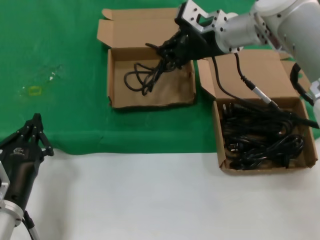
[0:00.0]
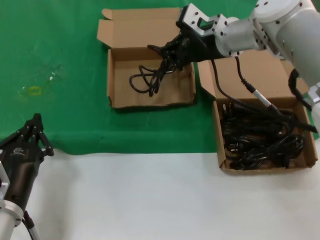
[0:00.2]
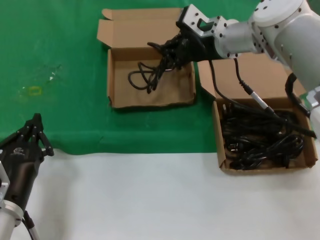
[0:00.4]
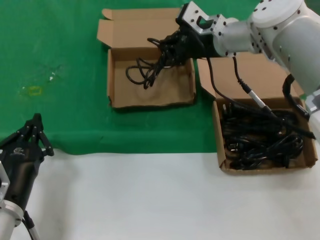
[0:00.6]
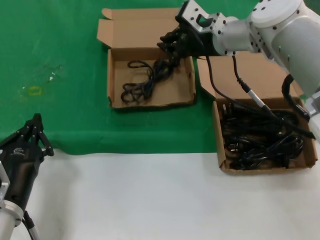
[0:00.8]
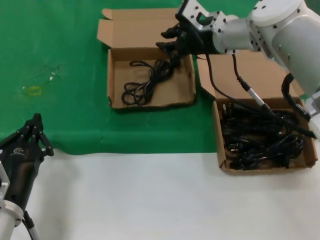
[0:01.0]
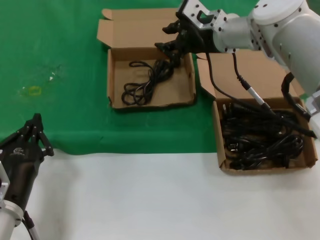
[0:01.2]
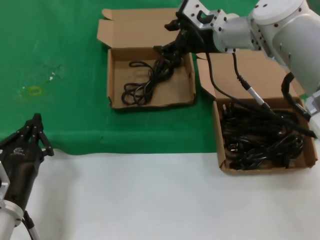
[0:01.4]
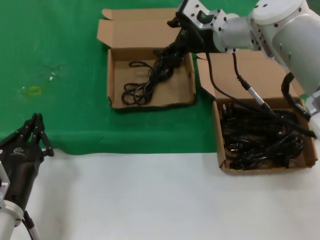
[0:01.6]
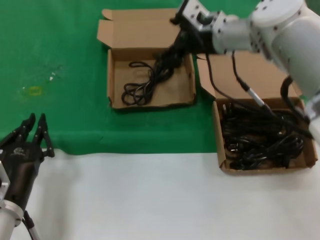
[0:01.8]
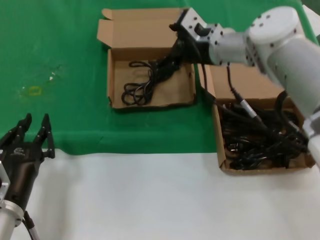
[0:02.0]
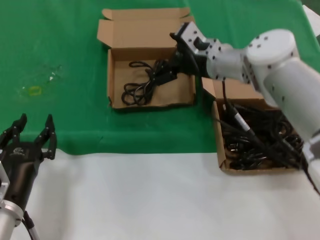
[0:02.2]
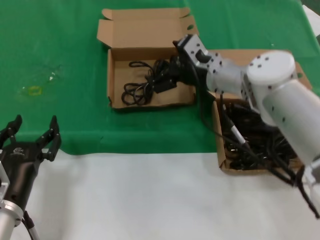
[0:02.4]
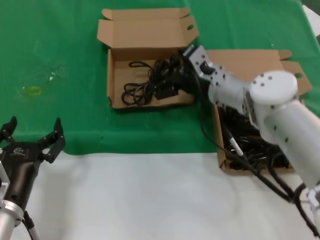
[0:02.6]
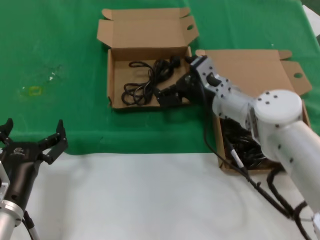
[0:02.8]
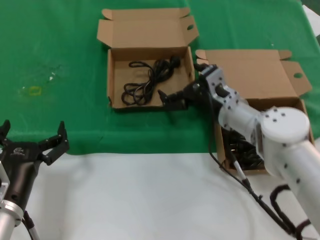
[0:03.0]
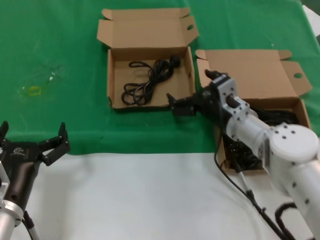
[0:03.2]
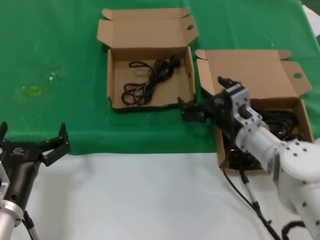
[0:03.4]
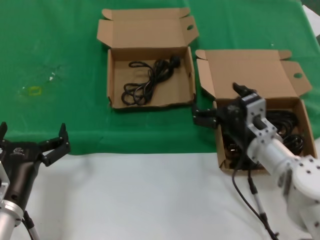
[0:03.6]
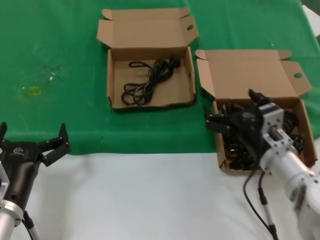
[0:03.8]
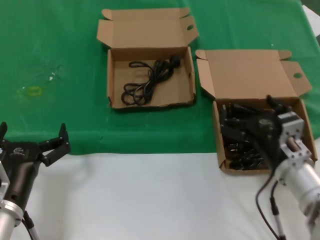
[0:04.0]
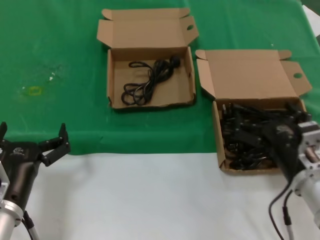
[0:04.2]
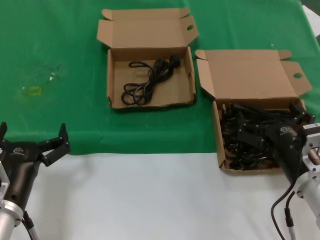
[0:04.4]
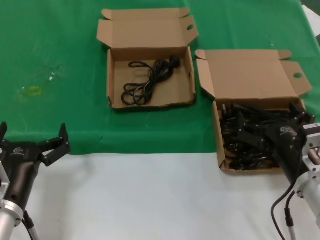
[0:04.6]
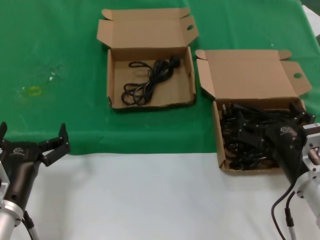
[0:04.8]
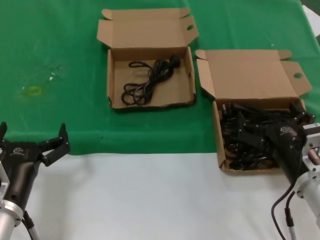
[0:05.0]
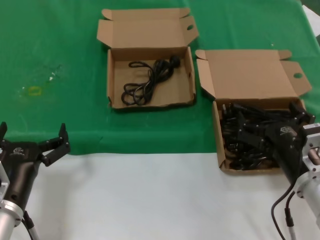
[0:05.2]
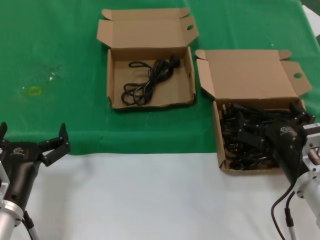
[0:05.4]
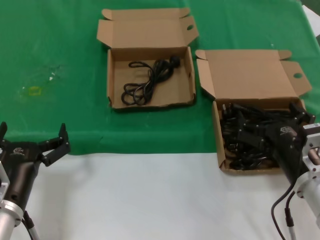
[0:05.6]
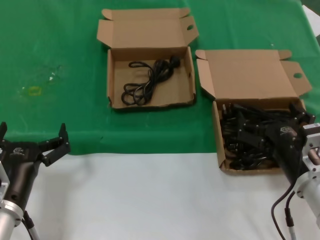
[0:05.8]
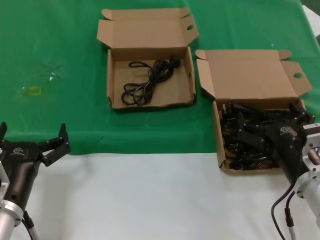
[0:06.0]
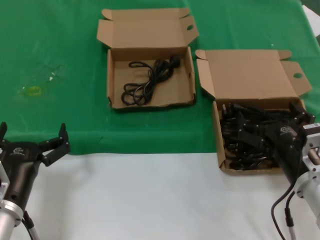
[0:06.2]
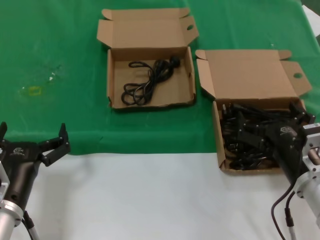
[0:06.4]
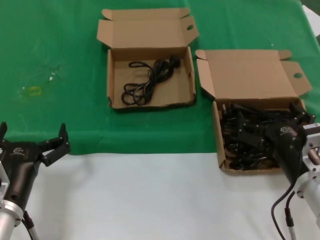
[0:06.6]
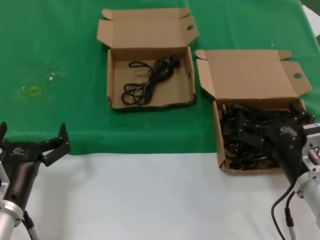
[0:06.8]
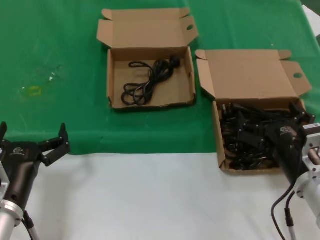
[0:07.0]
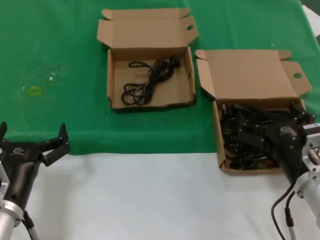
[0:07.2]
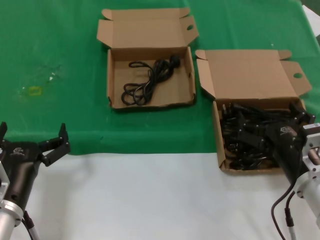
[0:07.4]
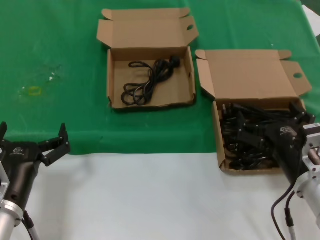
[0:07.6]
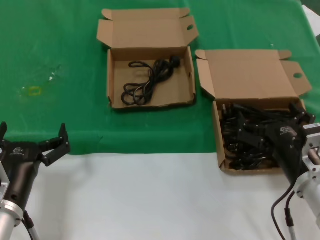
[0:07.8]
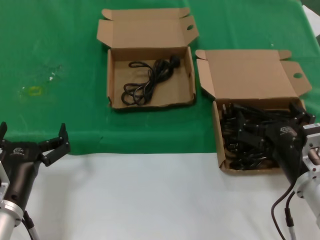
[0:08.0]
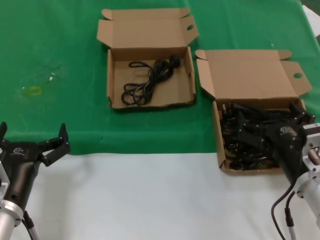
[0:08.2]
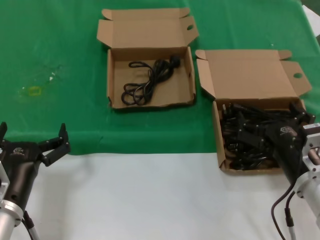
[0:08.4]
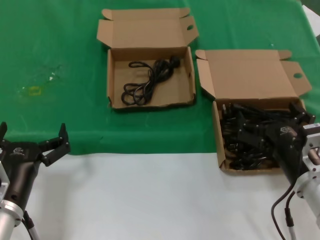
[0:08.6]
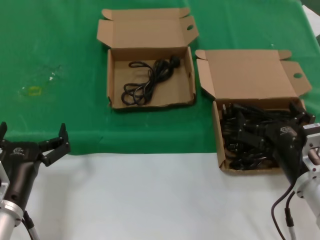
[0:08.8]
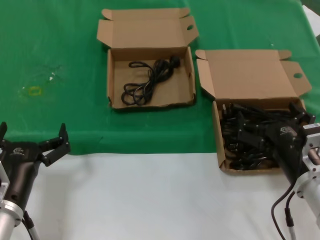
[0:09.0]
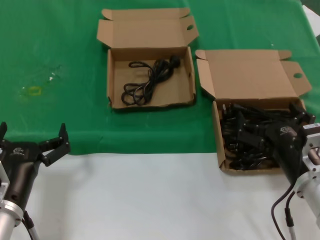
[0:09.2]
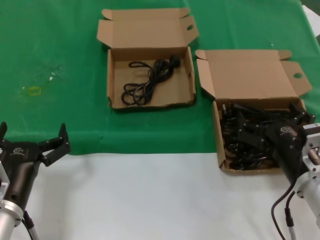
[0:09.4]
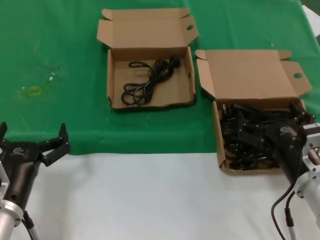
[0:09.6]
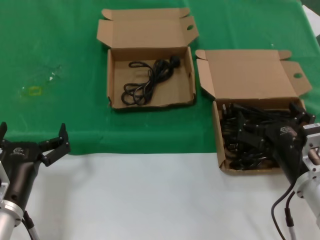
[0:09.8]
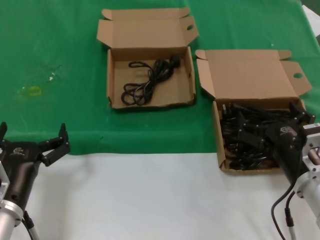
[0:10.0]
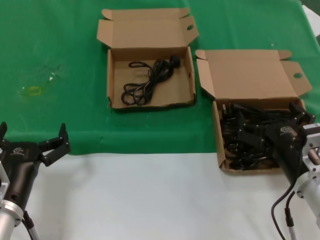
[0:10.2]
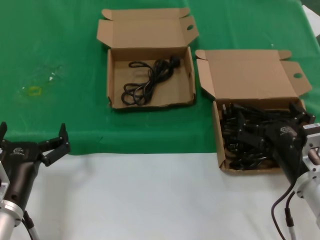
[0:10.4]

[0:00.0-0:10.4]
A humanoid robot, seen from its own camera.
Task of the whole recording: take the parts from the box containing them and put them into an empty box.
0:00.0 to 0:01.4: The hands make only small movements.
0:01.4 to 0:03.0: The right hand travels downward and backward by about 20 cm.
0:03.0 to 0:04.4: The right hand heads backward and to the right, covering some 20 cm.
0:04.4 to 0:10.4: The two hands keep their place.

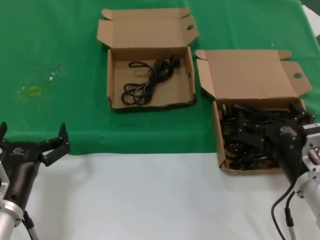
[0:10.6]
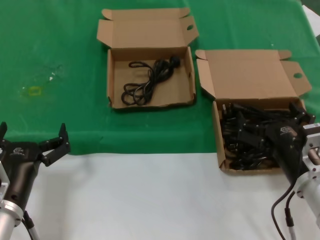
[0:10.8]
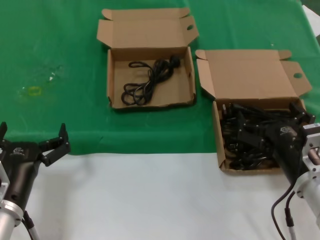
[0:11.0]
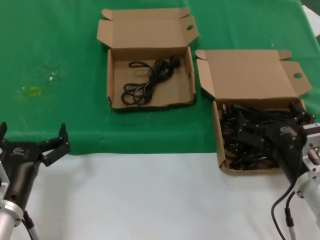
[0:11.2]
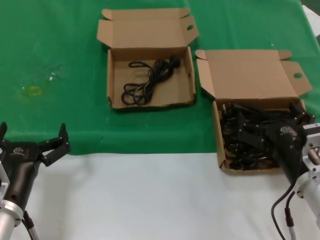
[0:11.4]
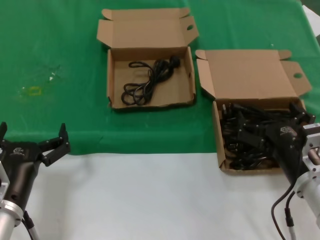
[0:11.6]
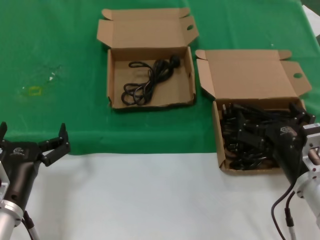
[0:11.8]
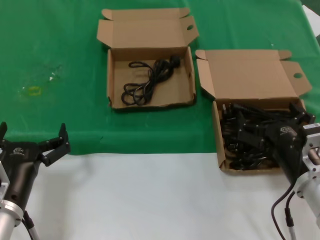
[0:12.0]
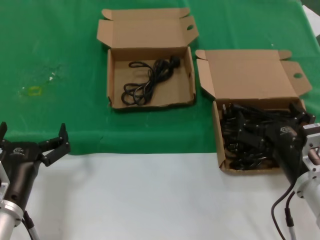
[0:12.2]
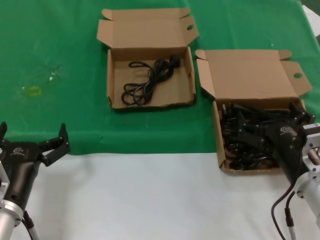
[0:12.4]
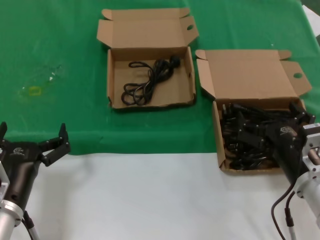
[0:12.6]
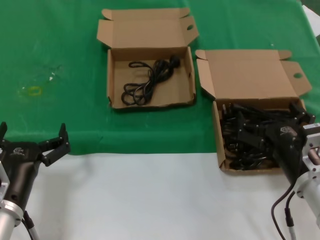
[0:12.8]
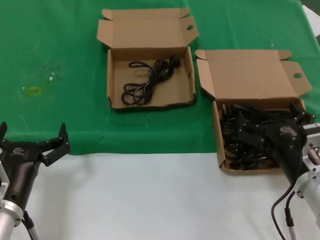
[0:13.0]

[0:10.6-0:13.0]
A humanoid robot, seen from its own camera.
Task of the whole recording: take the parts from the box containing them and put them into an empty box.
0:10.6 to 0:13.0: The two hands keep their place.

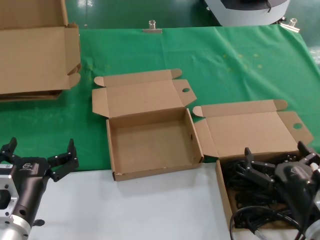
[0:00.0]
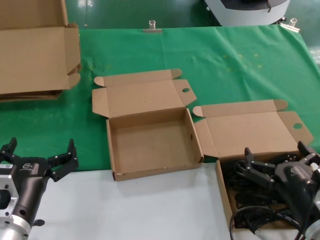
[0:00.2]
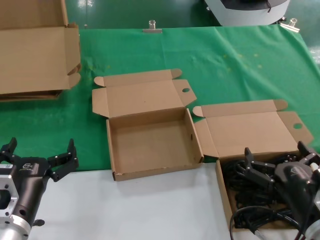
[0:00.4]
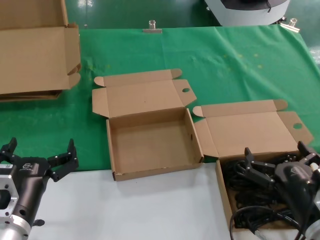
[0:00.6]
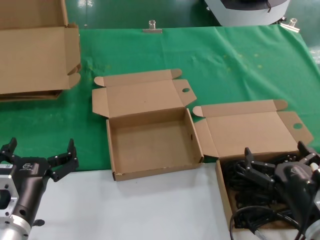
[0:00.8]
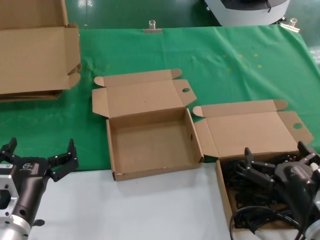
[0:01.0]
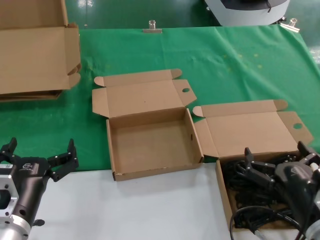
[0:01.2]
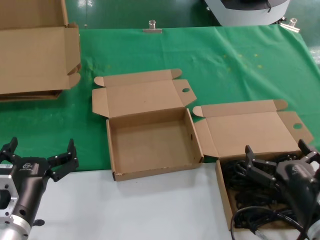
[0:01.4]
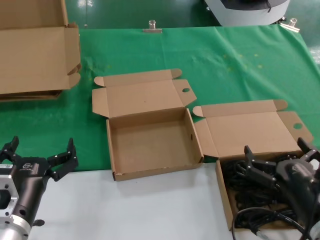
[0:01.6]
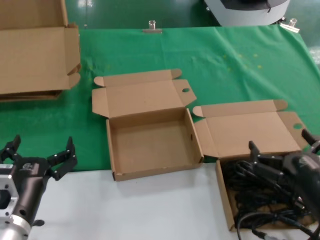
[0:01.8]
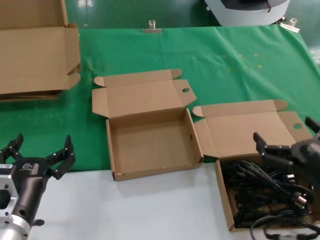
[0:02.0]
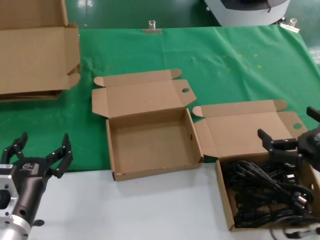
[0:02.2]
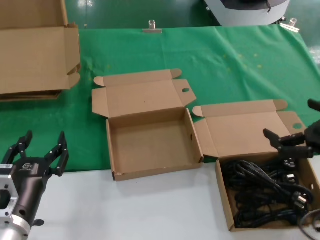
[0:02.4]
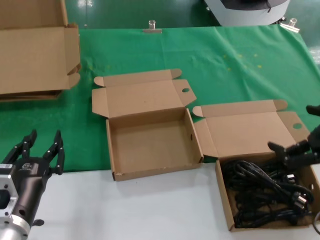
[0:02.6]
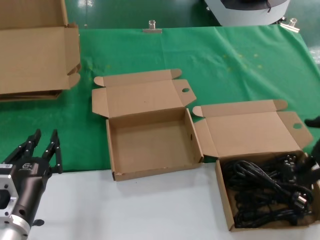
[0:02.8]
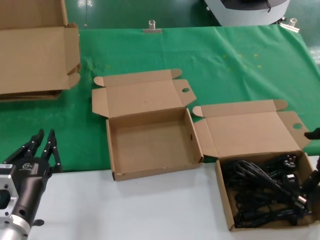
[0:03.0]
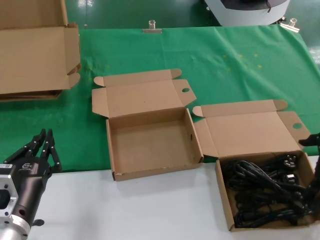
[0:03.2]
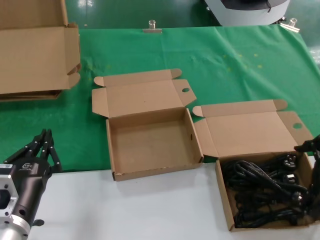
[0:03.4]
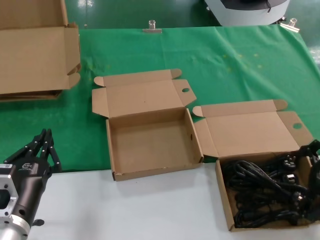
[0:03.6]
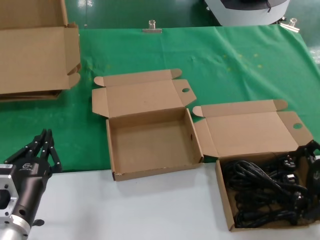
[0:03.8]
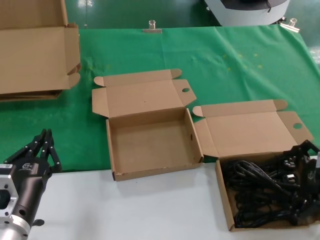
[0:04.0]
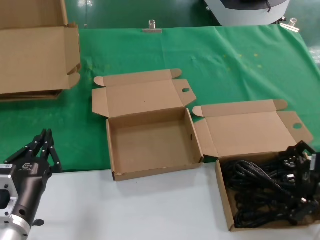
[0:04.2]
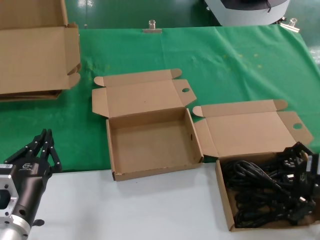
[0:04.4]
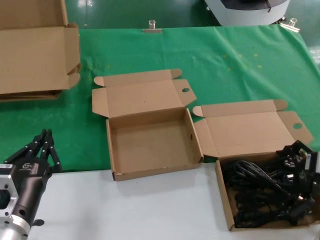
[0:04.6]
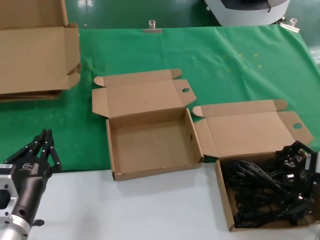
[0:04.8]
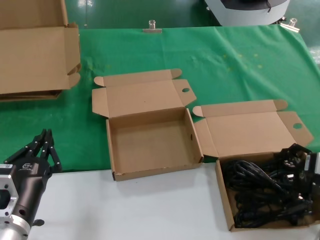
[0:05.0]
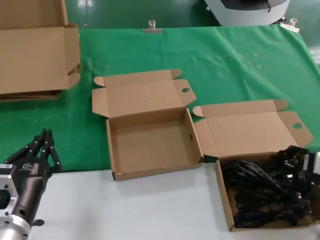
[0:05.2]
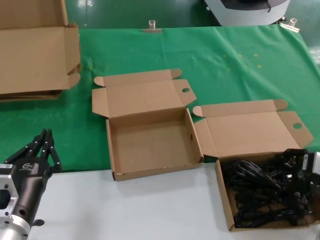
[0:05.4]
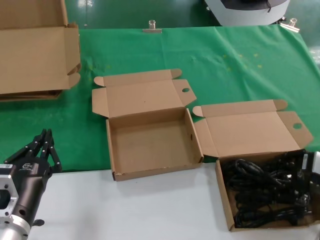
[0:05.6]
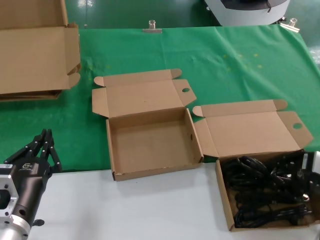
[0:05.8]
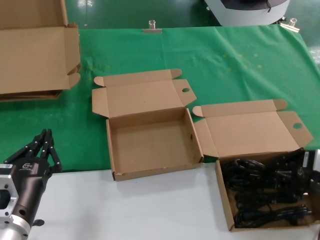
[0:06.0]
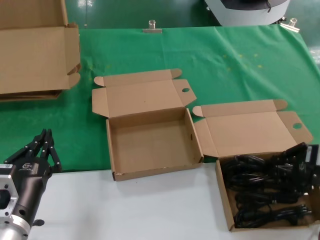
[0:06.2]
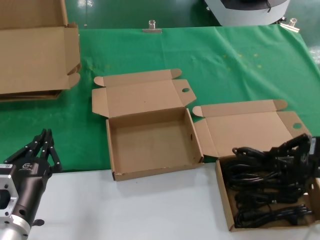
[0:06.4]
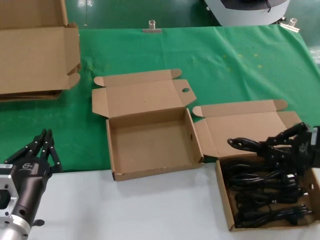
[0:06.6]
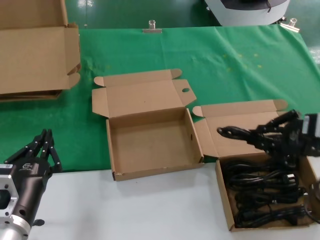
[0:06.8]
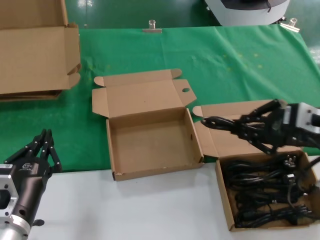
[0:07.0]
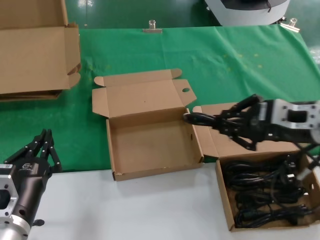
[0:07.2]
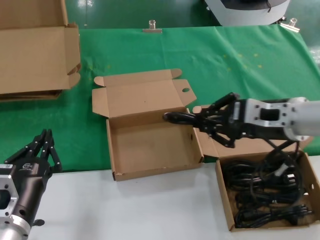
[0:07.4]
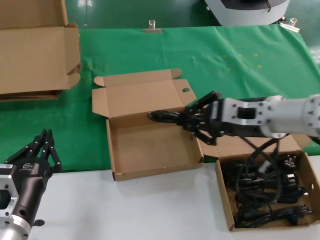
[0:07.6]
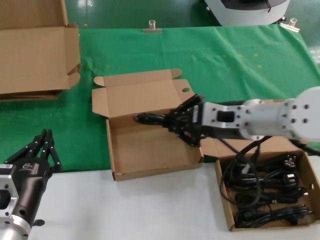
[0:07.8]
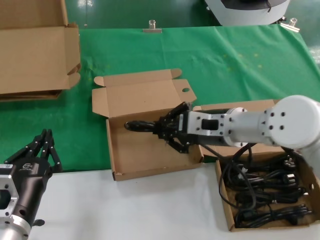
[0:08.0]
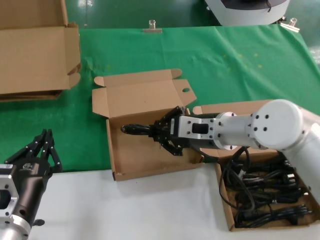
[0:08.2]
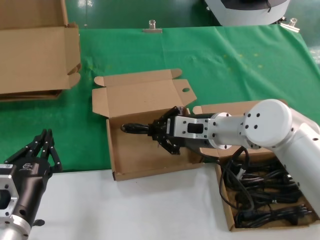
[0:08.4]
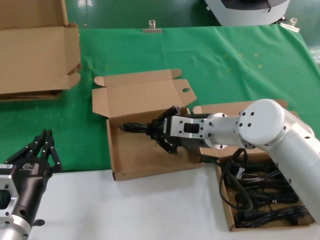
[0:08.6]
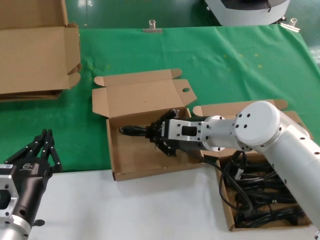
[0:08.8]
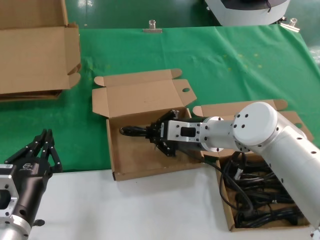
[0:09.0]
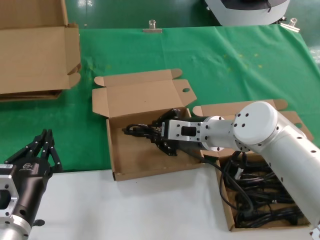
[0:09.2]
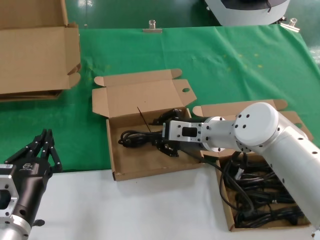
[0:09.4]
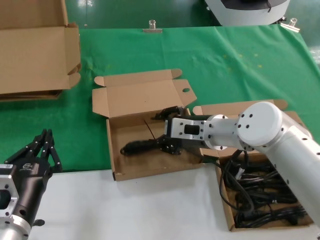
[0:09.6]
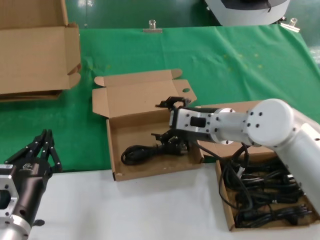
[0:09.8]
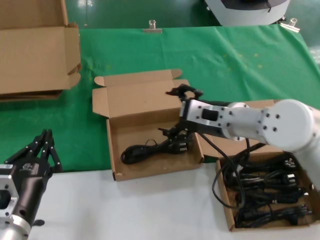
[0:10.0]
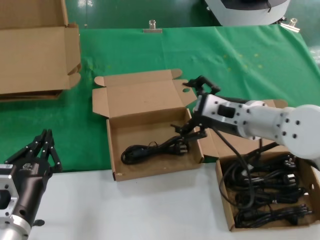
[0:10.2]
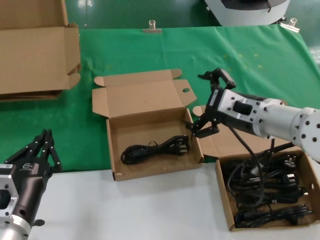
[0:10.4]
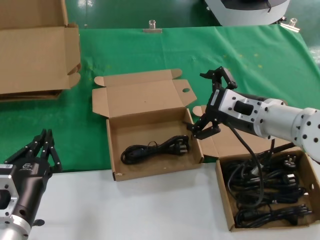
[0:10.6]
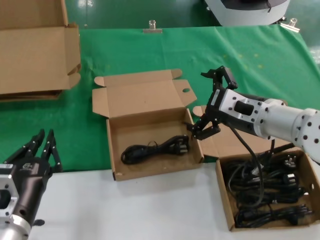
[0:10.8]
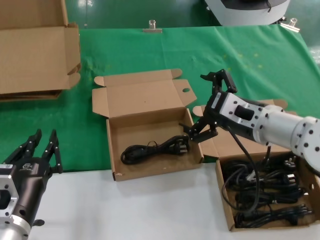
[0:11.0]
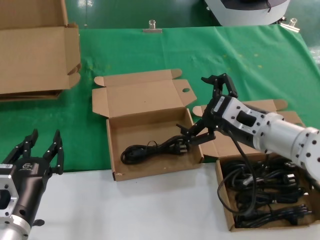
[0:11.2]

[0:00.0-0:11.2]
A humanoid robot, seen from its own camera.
Task of the whole recording: take the parts from the box containing them and put them into an empty box.
Step, 0:00.0 to 0:05.6: Grasp the data cable.
Step, 0:05.8 to 0:09.4: Place the data cable in the another box.
0:00.0 to 0:01.6: Both hands stay about where they are.
0:01.6 to 0:03.2: The right hand goes approximately 20 cm upward and to the right.
0:03.2 to 0:04.8: The right hand moves downward and forward, some 10 cm.
0:04.8 to 0:06.4: The hands stay close to where they were, moving slightly.
0:06.4 to 0:08.0: The right hand travels to the left by some 20 cm.
0:08.0 to 0:09.6: The right hand moves downward, approximately 5 cm.
0:09.6 to 0:11.2: The right hand is displaced backward and to the right by about 10 cm.
